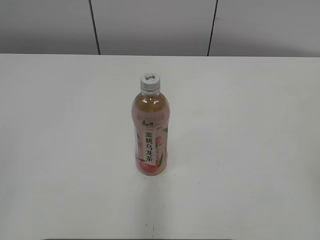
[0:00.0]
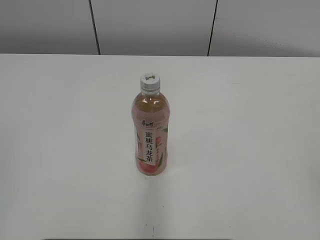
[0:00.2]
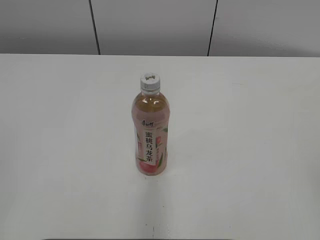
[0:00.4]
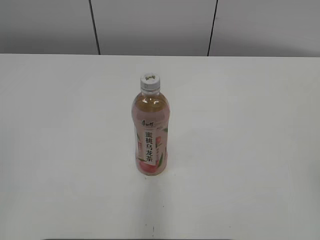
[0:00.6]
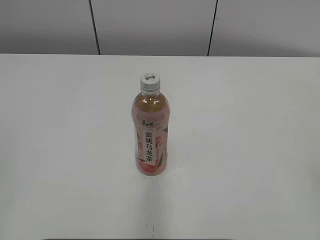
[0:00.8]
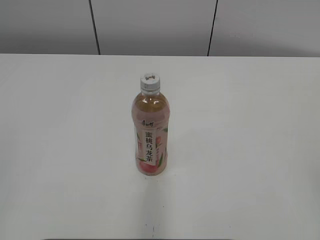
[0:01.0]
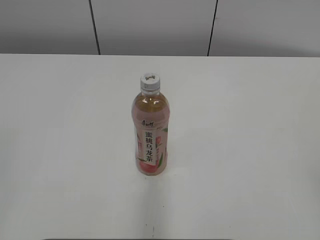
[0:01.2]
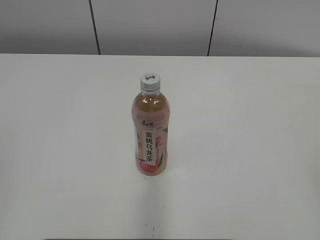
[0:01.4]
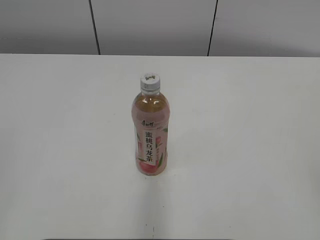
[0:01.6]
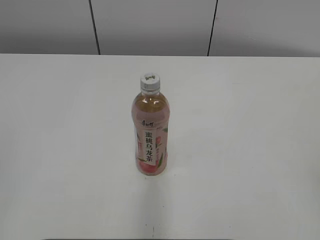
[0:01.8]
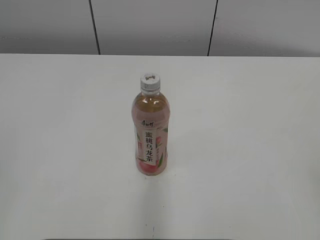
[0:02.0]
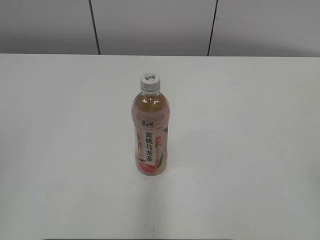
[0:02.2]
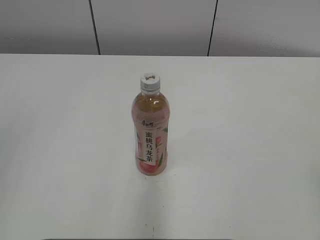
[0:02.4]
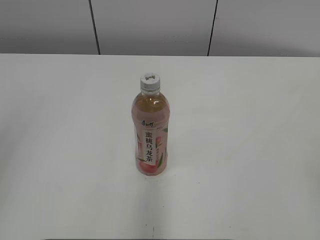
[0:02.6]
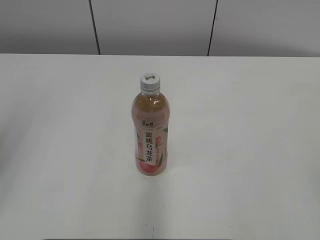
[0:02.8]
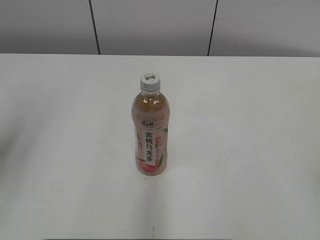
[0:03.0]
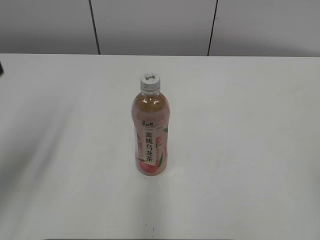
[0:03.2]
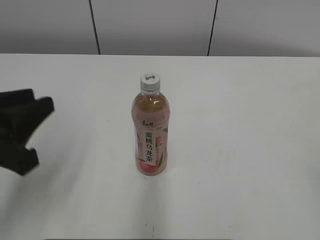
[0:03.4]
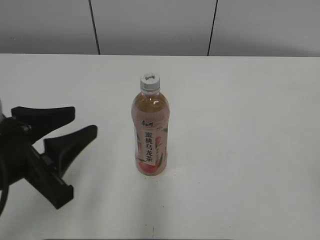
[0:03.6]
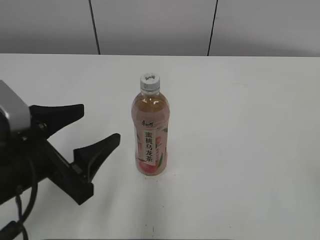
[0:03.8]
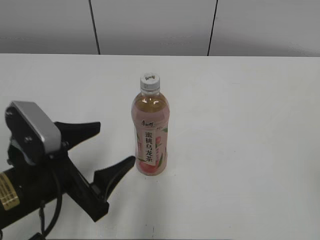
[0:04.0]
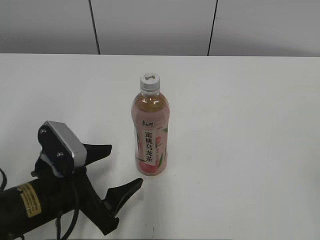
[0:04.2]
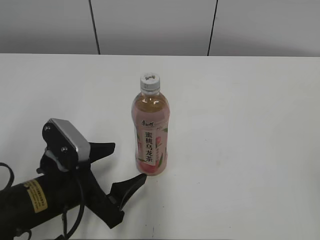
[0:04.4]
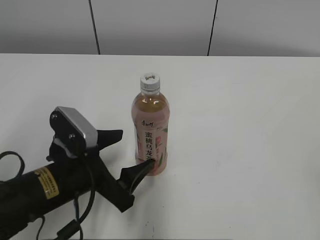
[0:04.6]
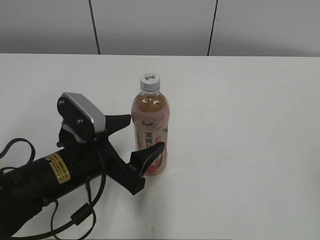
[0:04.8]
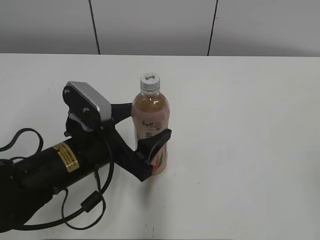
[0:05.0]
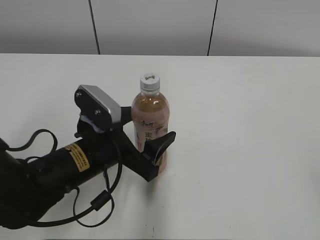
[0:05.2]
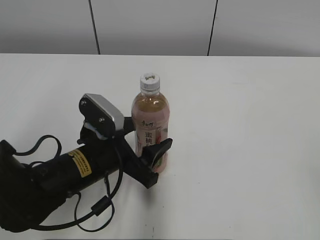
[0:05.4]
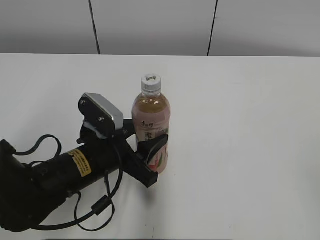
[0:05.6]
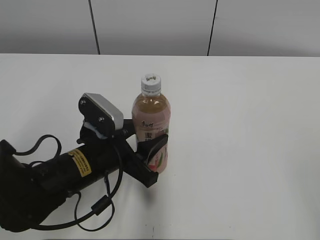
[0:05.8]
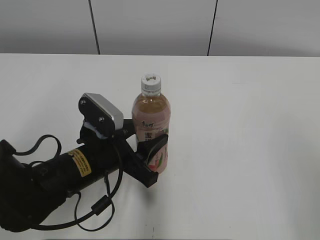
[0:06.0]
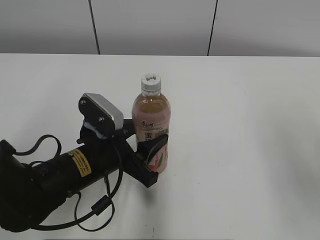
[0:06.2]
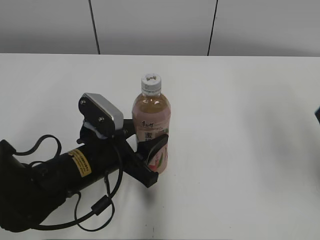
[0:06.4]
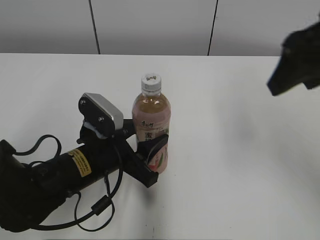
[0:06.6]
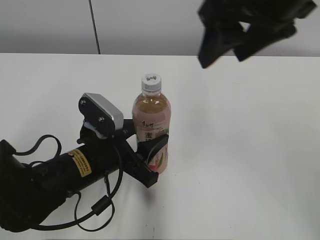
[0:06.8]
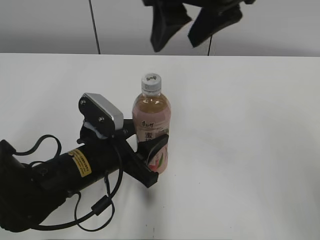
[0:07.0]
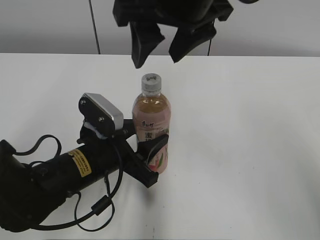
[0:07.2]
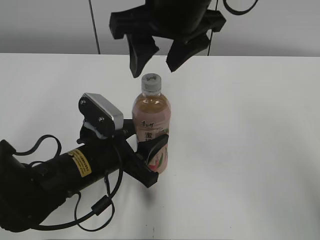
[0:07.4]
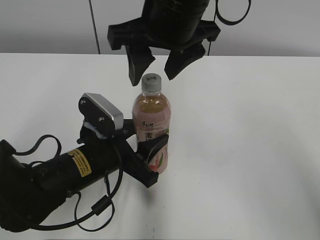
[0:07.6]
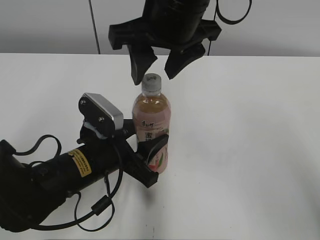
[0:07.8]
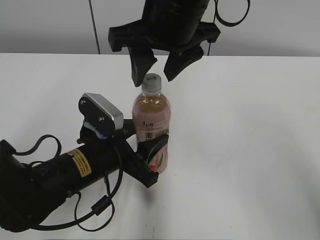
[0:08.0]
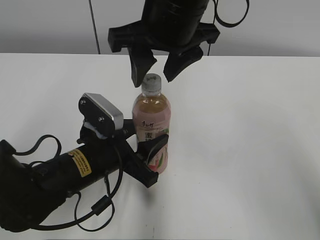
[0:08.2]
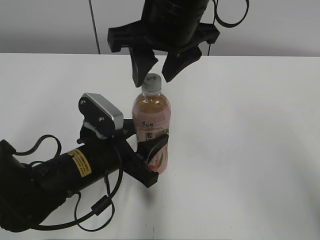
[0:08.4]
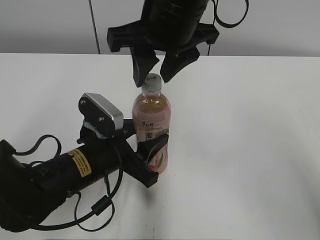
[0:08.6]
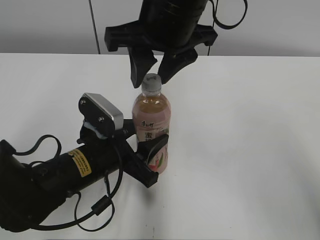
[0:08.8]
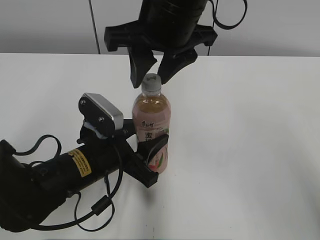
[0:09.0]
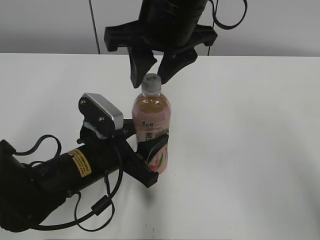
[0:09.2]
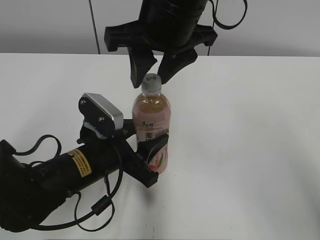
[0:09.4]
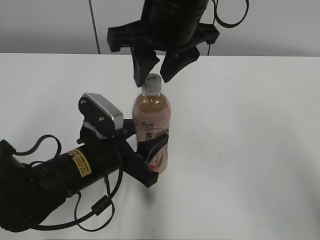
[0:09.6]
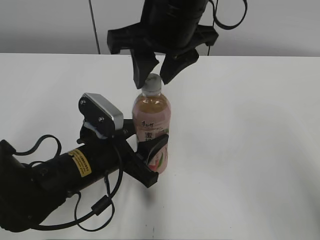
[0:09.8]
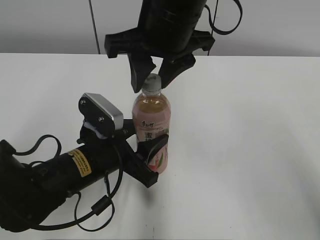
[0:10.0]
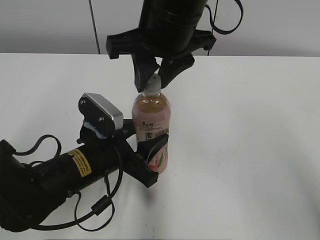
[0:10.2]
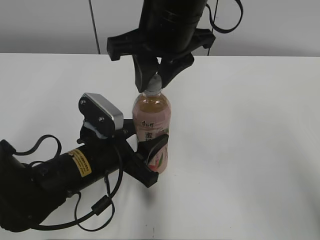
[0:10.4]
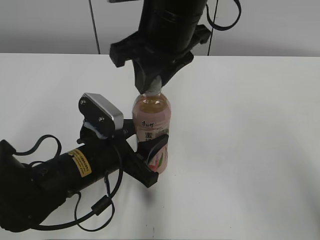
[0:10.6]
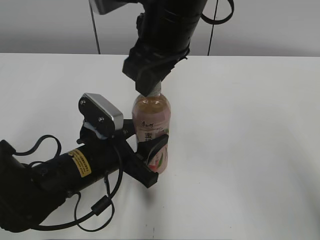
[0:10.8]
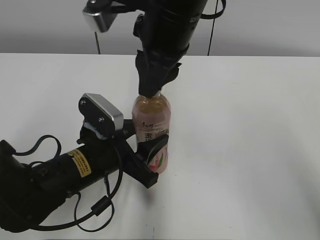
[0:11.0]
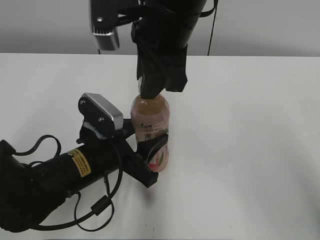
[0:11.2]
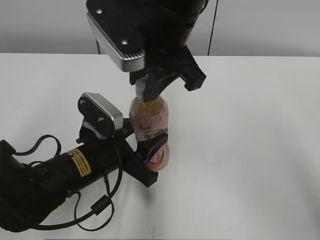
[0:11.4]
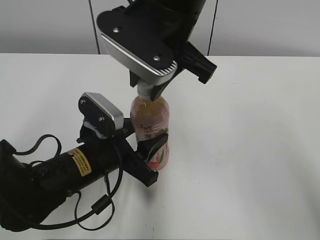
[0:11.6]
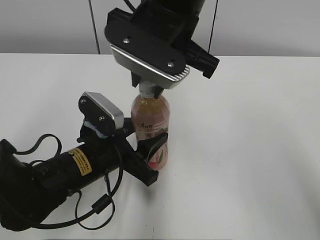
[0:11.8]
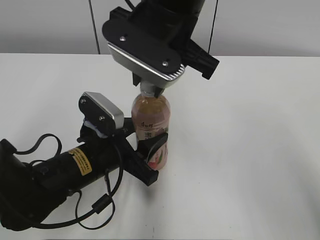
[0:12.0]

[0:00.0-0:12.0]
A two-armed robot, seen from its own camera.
Step, 0:00.0 to 0:05.4: Grab the Peach Oolong Tea with the left hand.
0:01.6 to 0:03.0: The left gripper is displaced forward by approximately 15 cm.
0:03.0 to 0:04.4: The left gripper goes some 25 cm downward and to the right, and opens up.
0:04.4 to 0:06.0: The right gripper shifts by some 5 cm. The left gripper travels forward by about 5 cm, and closes its fingers.
0:06.0 to 0:07.6: The right gripper travels to the left and forward by roughly 35 cm.
0:07.6 to 0:09.0: The right gripper closes up.
0:09.0 to 0:10.4: Neither gripper changes place.

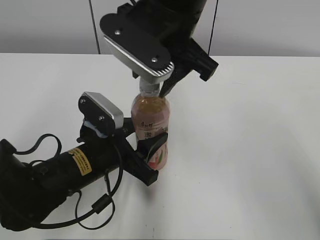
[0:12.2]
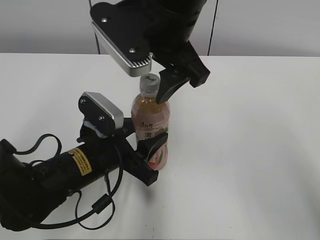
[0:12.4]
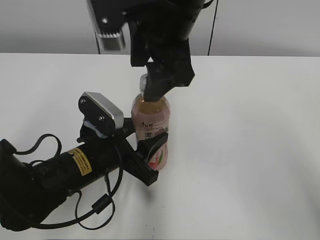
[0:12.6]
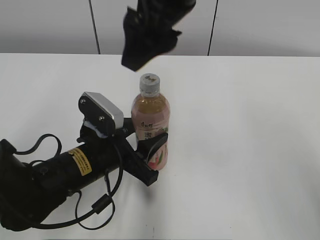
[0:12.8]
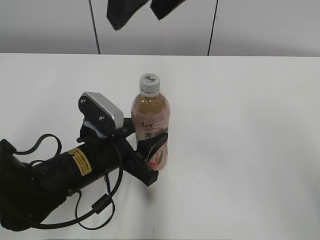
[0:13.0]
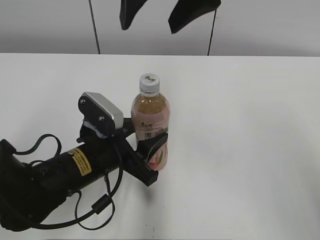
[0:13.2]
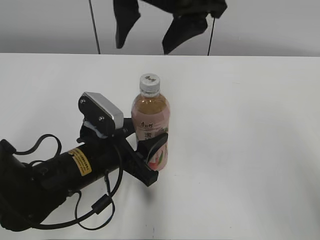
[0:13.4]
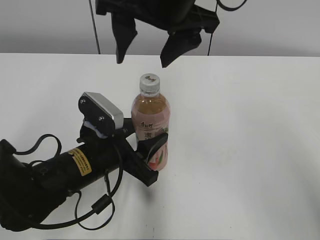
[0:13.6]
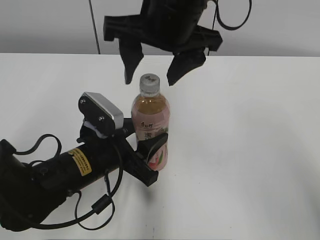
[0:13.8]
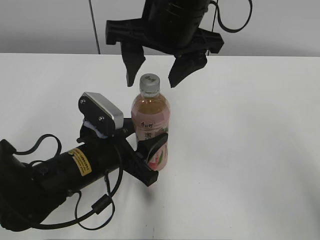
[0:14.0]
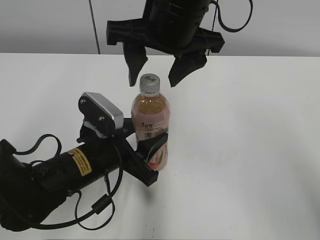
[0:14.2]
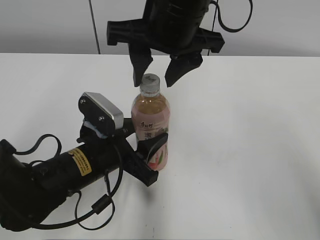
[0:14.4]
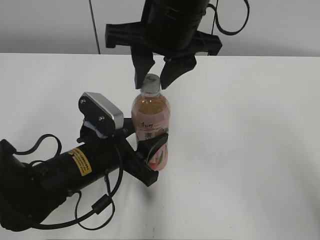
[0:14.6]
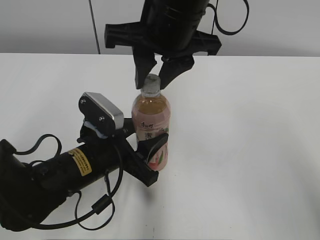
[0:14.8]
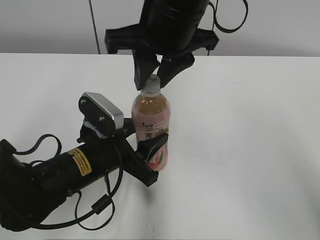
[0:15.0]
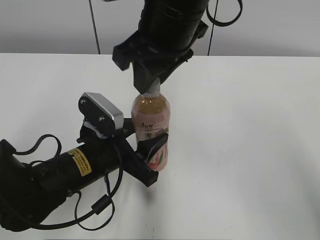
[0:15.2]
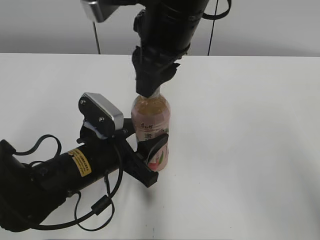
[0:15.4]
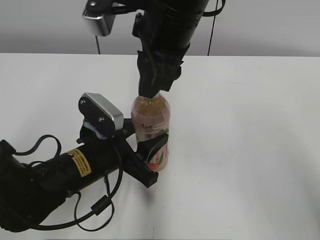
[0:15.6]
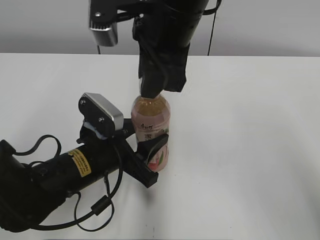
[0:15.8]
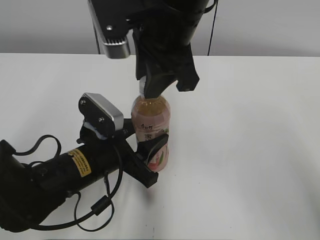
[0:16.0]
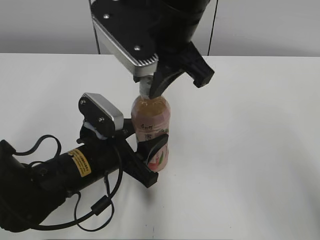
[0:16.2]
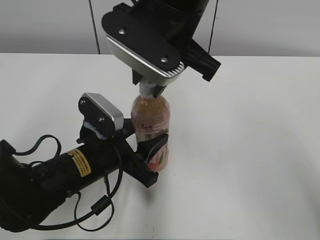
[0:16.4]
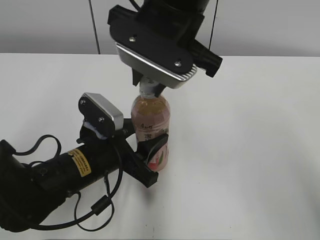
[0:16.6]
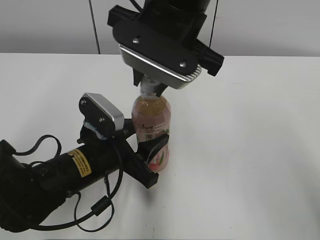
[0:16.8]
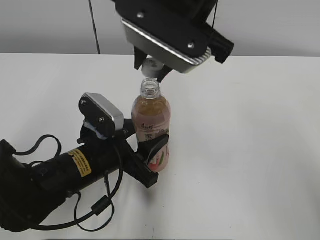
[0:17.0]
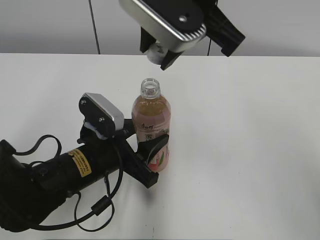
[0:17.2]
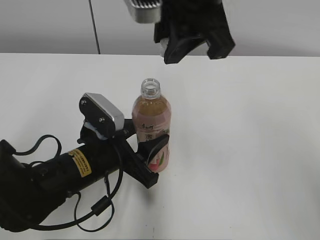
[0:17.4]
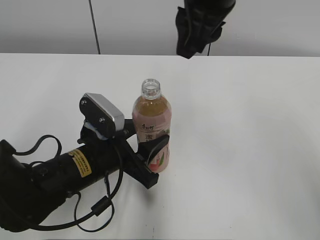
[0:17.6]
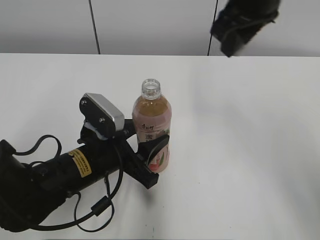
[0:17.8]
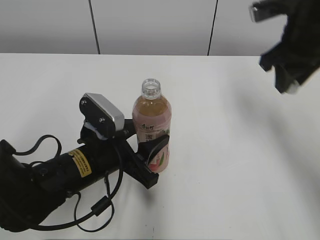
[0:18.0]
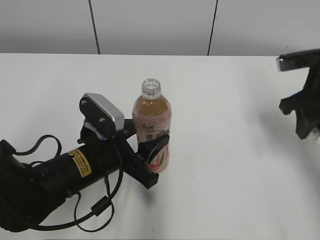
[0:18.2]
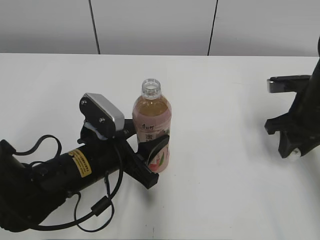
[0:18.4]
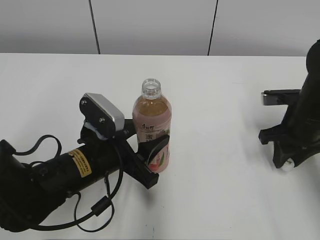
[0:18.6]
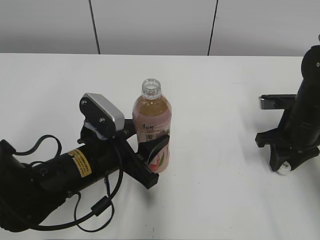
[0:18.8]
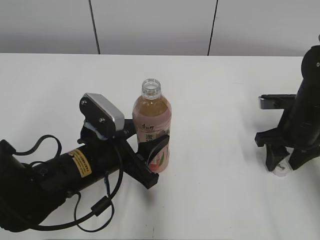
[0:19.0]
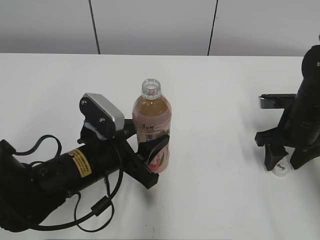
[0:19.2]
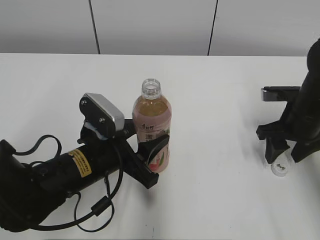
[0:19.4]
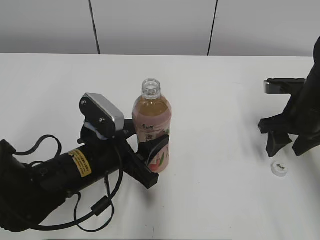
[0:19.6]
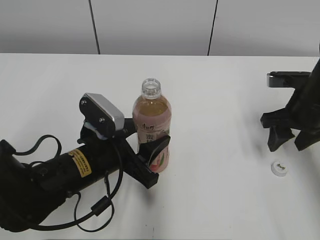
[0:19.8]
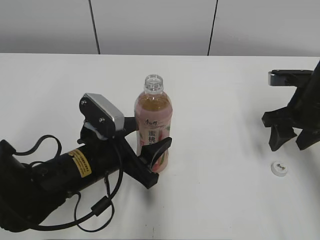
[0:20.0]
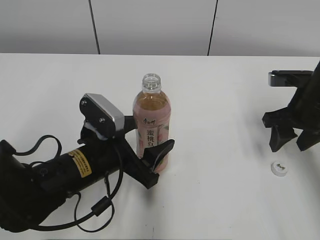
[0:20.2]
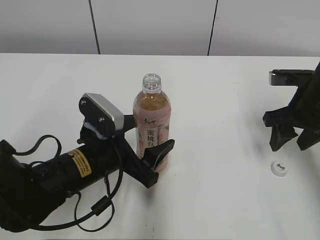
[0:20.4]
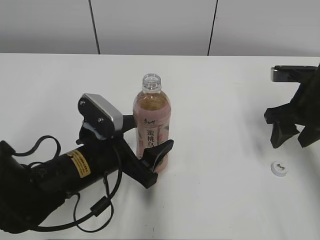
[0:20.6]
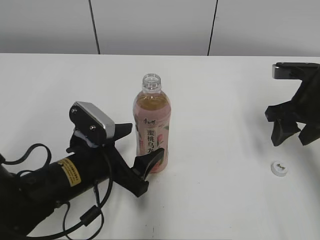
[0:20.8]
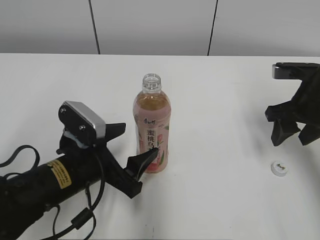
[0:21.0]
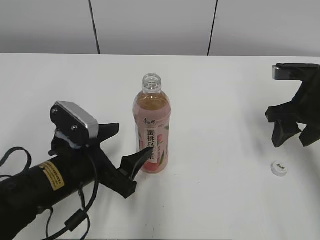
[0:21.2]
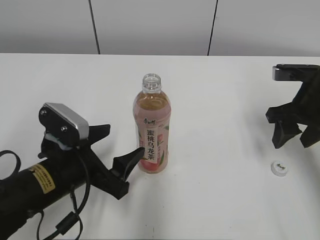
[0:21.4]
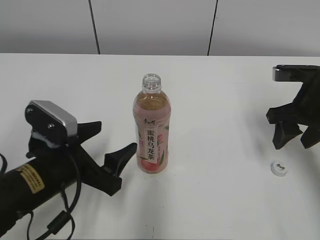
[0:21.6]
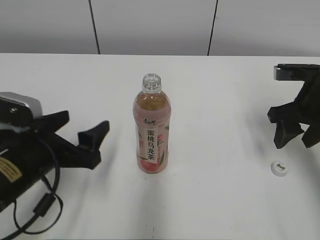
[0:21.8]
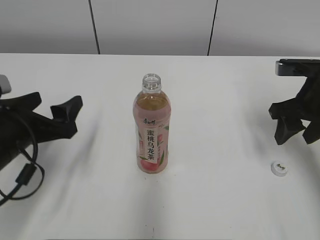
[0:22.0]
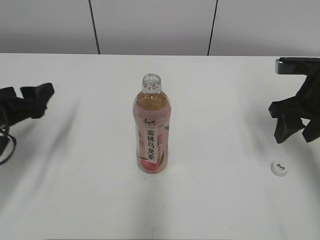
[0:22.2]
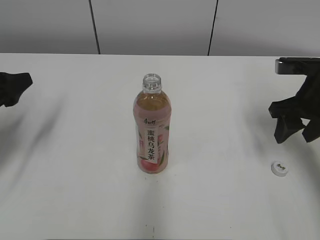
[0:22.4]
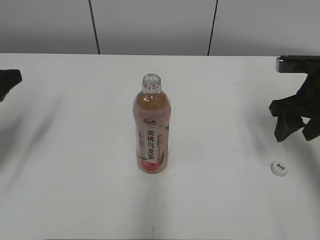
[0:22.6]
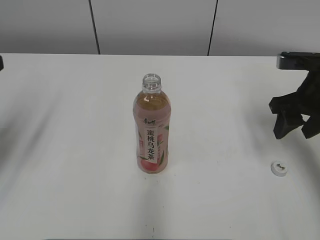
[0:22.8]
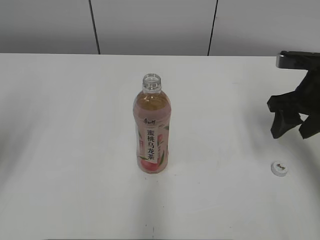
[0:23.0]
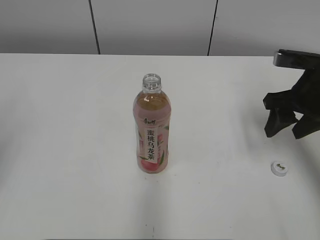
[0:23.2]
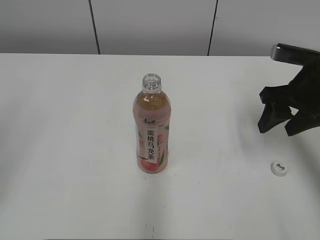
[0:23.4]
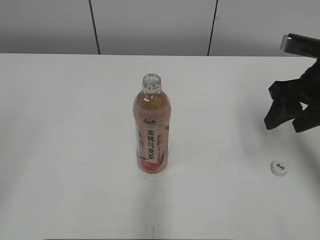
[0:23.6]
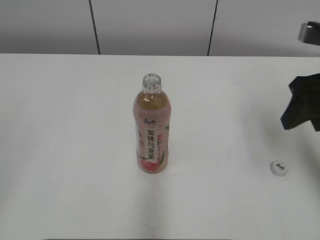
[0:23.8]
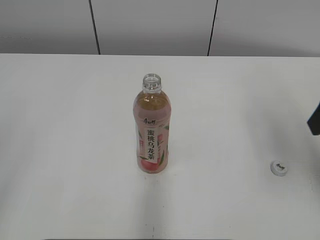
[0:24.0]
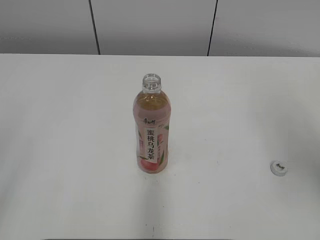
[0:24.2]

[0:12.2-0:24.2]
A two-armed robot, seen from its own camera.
Step, 0:12.2 to 0:17.0: Twist the bottle cap with the right hand.
Step, 0:17.2 to 0:19.2: Place the bottle cap on the right.
Step, 0:19.4 to 0:21.0: Place the Peach Oolong Tea with the left hand.
0:12.2 to 0:13.8: The right gripper reaches some 10 cm upward, then returns, and opens up.
0:13.8 to 0:15.2: The right gripper closes up.
0:16.6 to 0:18.2: The right gripper is displaced to the right by about 25 cm.
0:18.2 to 0:19.8: The right gripper shifts approximately 5 cm downward, and opens.
0:19.8 to 0:21.2: The left gripper opens up.
0:21.2 to 0:22.6: The left gripper goes some 20 cm to the left and upward.
0:22.6 to 0:24.2: The left gripper shifts about 25 cm backward and upward, while the right gripper moves upward and backward, roughly 20 cm.
